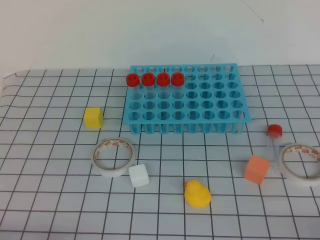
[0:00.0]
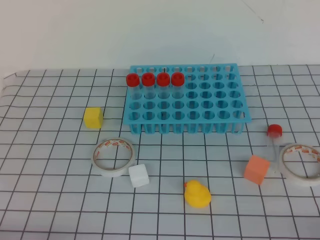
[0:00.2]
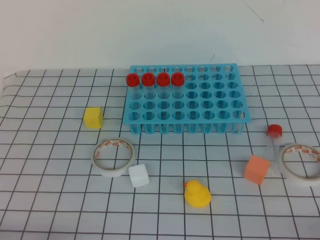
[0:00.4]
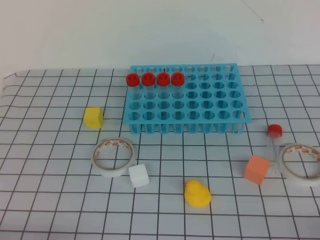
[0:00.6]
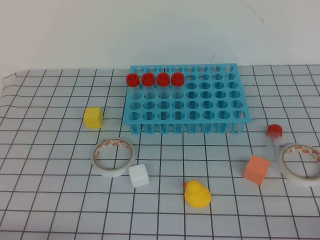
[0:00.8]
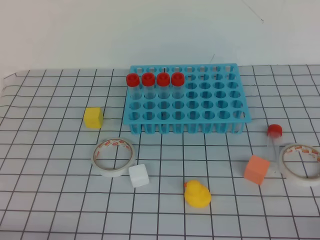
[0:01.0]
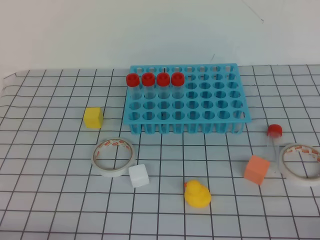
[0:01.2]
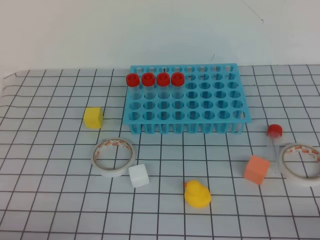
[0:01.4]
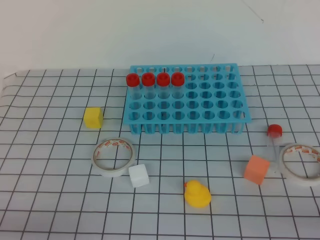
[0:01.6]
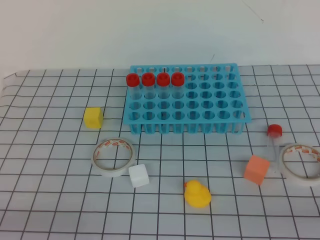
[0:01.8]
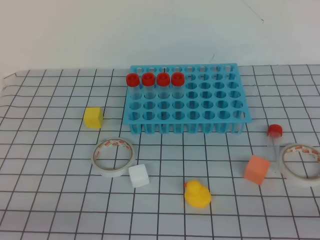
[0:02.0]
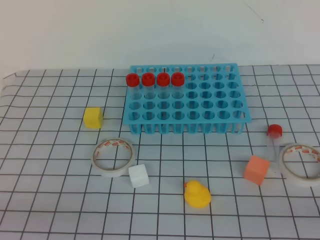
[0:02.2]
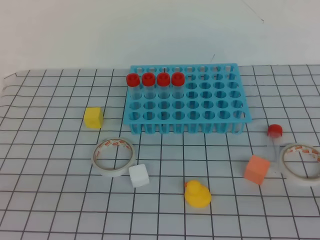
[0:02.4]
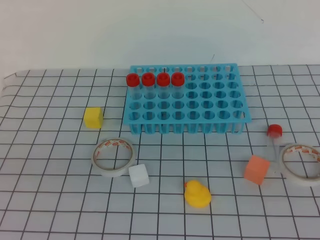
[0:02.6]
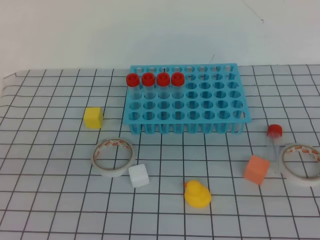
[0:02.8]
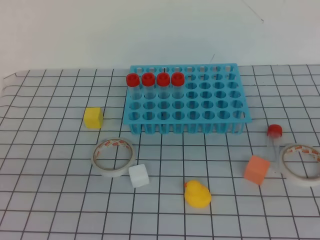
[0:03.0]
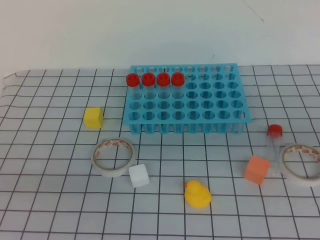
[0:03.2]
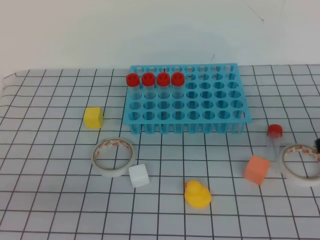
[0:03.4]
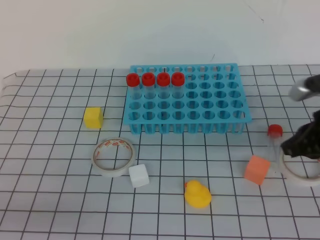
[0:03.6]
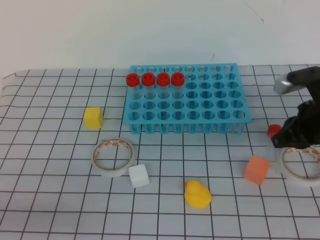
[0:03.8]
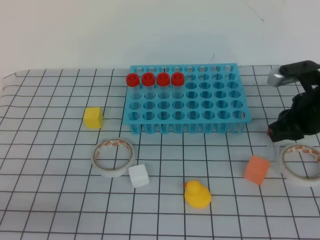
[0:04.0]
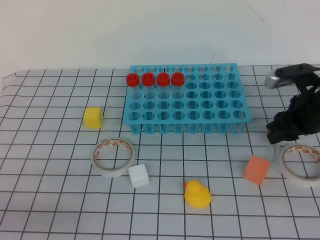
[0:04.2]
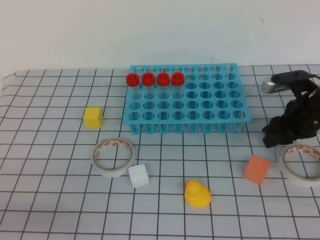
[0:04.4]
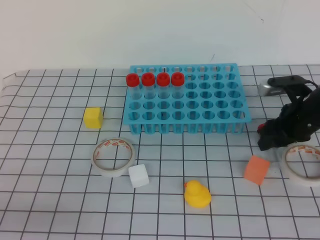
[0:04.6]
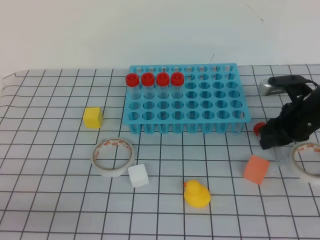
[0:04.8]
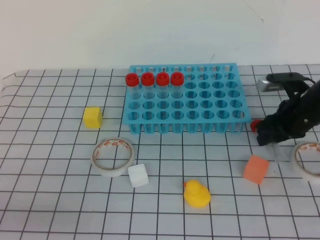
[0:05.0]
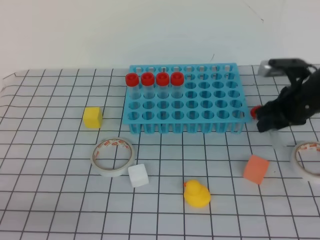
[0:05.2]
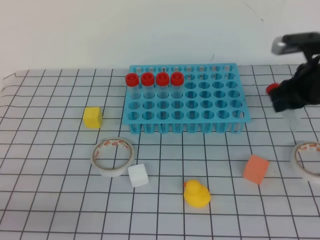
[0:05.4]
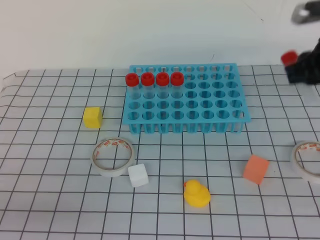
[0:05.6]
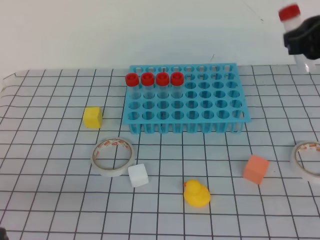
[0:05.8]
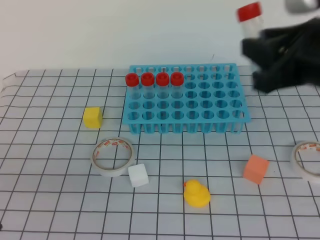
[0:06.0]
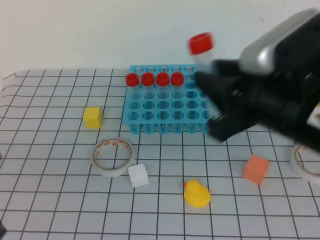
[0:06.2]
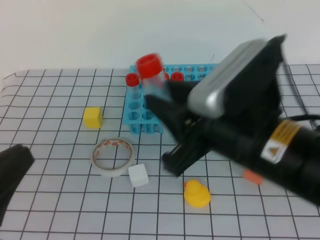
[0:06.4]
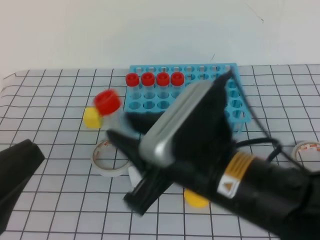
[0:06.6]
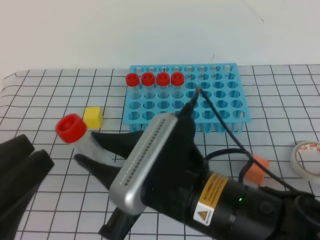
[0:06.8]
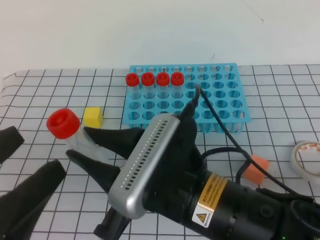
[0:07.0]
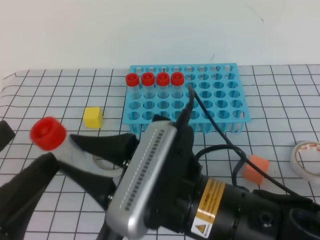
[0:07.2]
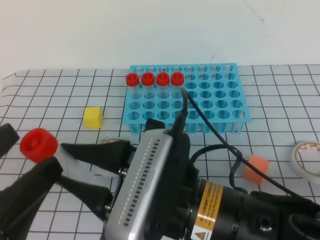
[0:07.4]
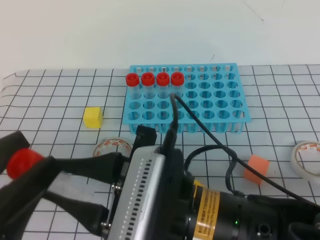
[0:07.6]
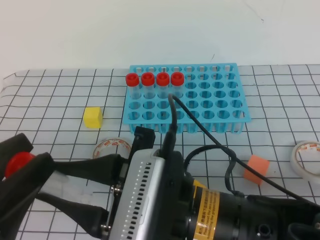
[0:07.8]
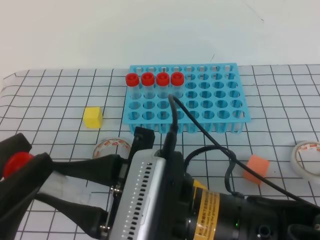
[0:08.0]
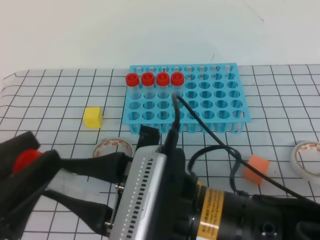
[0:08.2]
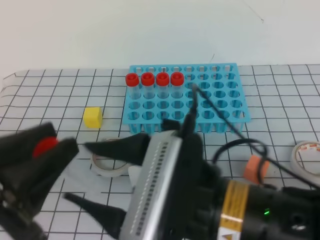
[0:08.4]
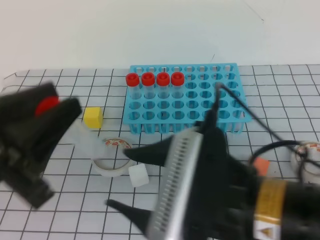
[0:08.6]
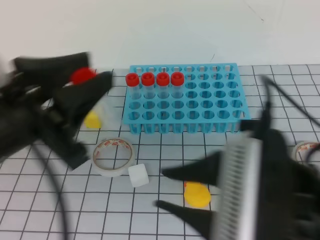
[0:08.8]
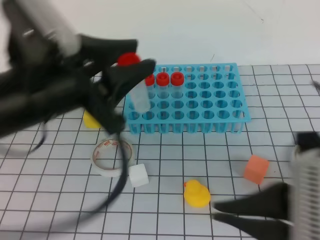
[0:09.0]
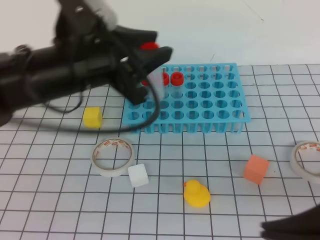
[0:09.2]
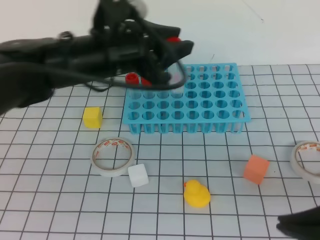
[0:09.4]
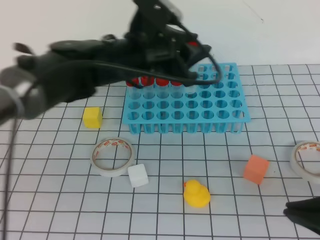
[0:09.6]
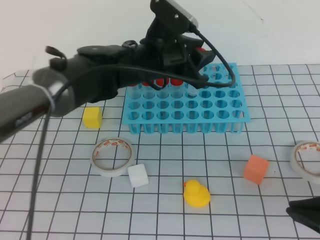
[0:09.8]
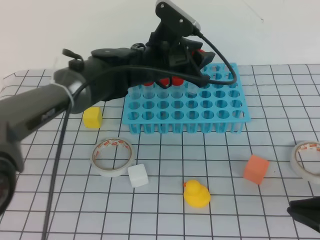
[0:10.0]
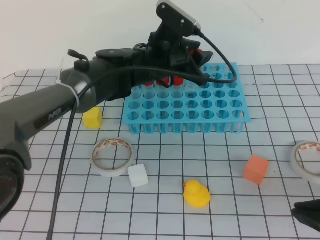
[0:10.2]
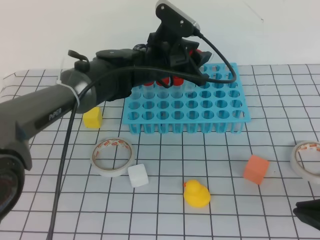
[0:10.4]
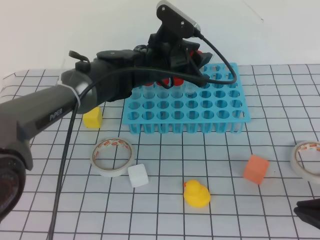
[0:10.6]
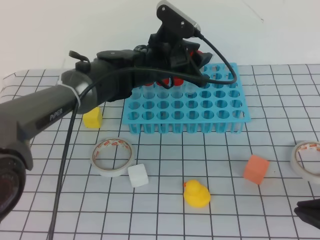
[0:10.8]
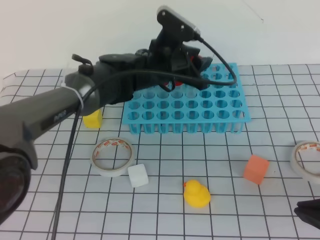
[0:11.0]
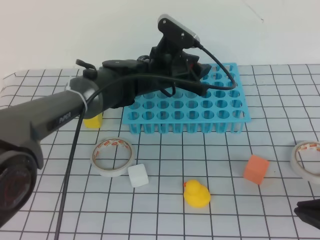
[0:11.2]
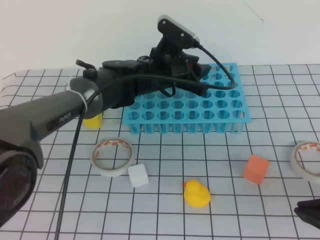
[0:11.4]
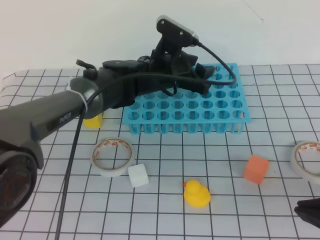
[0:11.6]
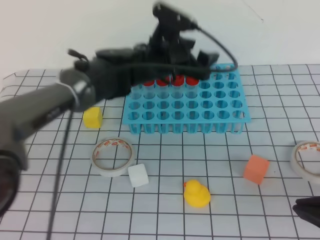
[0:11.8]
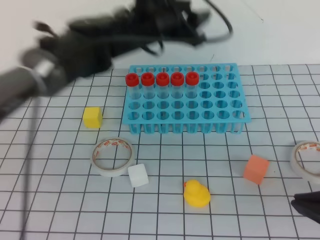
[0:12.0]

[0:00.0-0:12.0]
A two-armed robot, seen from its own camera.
0:03.0 to 0:04.4: The right gripper is displaced forward and downward by approximately 30 cm, and opens.
0:04.4 to 0:06.0: The right gripper goes approximately 20 cm upward and backward.
0:06.0 to 0:07.6: The left gripper ends up about 5 cm from where it was, and opens up, while the right gripper heads to the left, backward and downward, covering roughly 20 cm.
0:07.6 to 0:09.0: The right gripper heads to the right and upward, covering some 15 cm; the left gripper is displaced forward and to the right by approximately 15 cm.
0:09.0 to 0:10.4: The right gripper goes roughly 5 cm to the right. The left gripper heads forward, to the right and downward, covering about 30 cm.
0:10.4 to 0:12.0: The left gripper heads upward, covering roughly 10 cm.

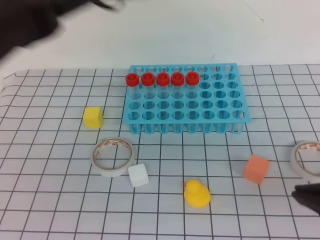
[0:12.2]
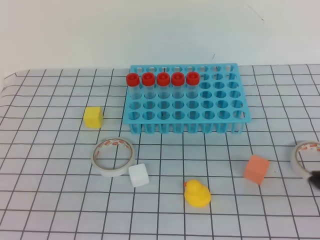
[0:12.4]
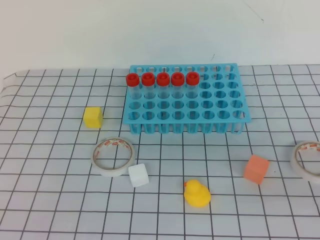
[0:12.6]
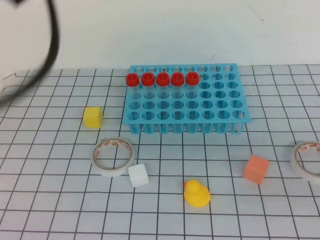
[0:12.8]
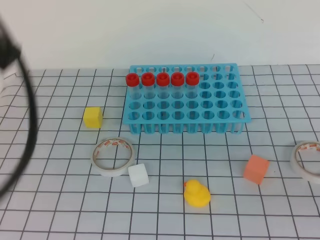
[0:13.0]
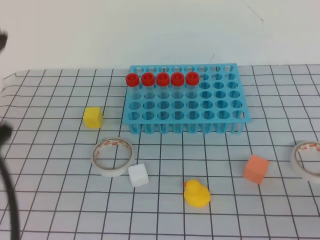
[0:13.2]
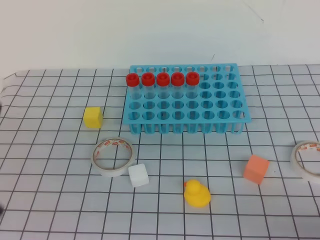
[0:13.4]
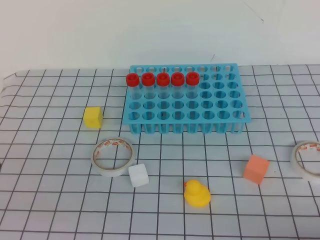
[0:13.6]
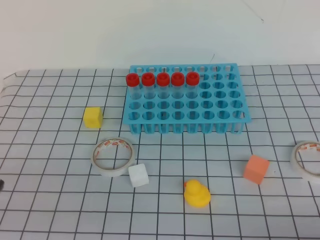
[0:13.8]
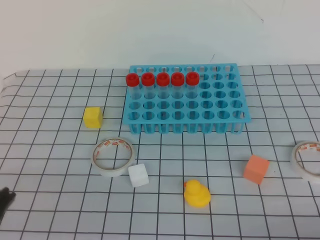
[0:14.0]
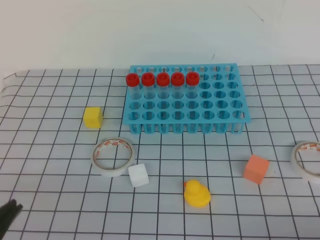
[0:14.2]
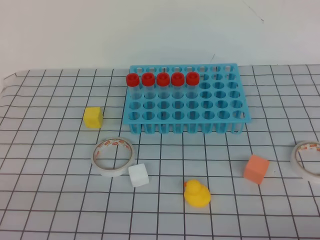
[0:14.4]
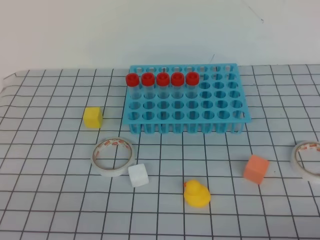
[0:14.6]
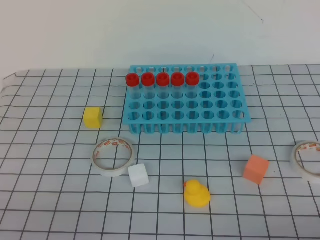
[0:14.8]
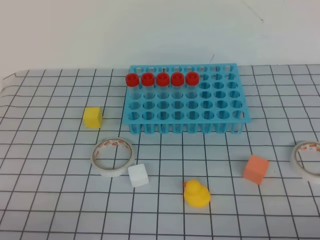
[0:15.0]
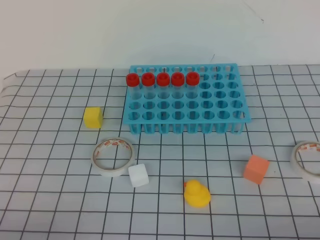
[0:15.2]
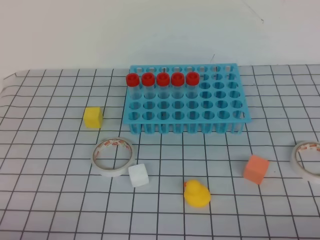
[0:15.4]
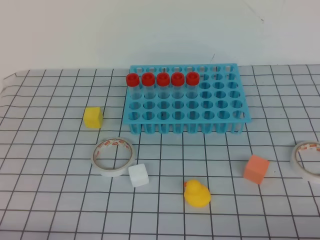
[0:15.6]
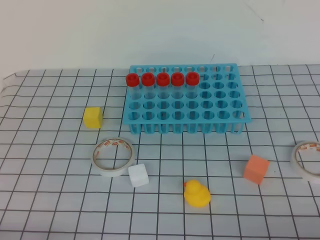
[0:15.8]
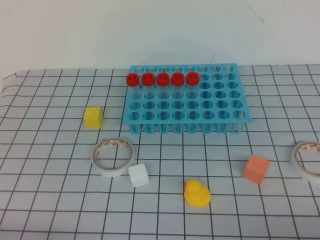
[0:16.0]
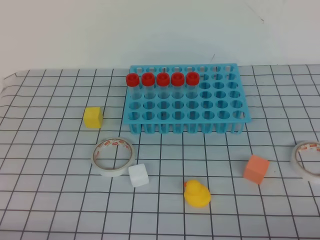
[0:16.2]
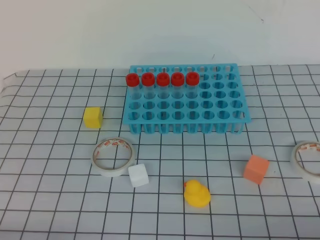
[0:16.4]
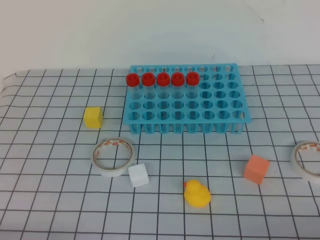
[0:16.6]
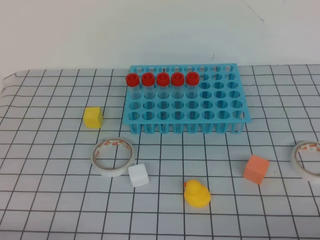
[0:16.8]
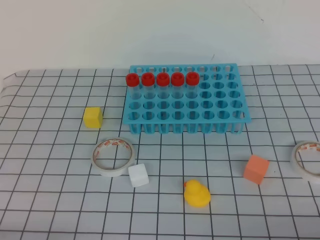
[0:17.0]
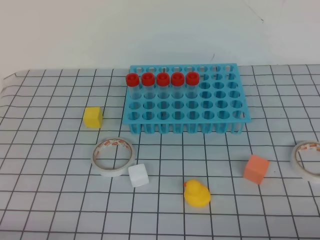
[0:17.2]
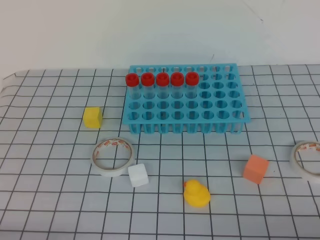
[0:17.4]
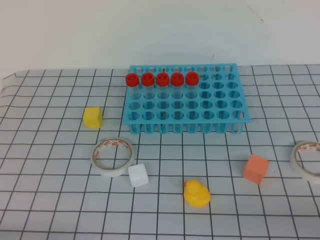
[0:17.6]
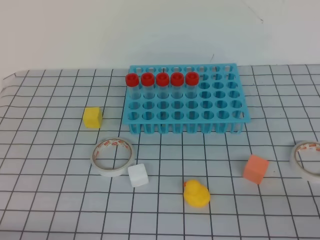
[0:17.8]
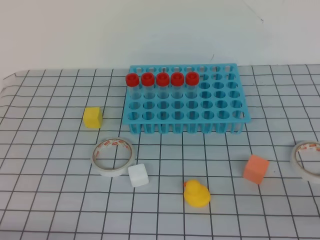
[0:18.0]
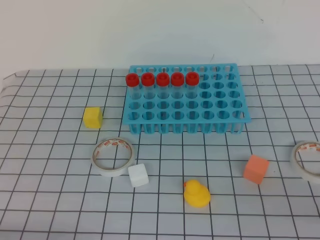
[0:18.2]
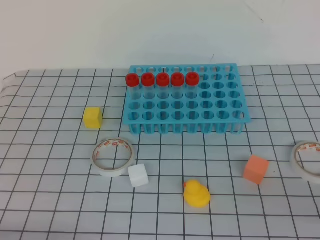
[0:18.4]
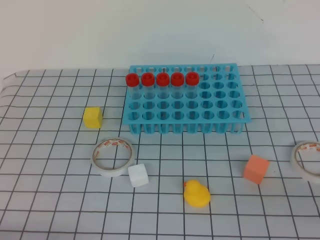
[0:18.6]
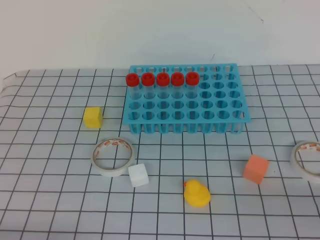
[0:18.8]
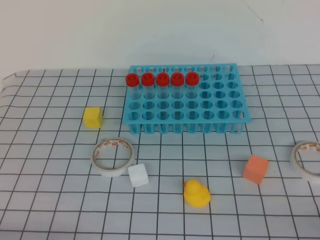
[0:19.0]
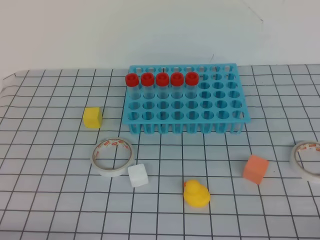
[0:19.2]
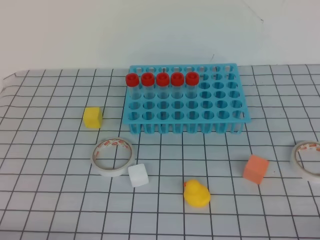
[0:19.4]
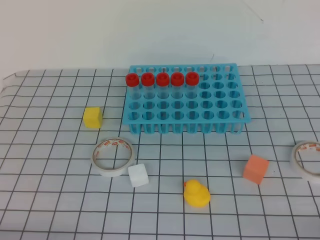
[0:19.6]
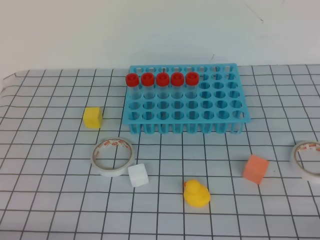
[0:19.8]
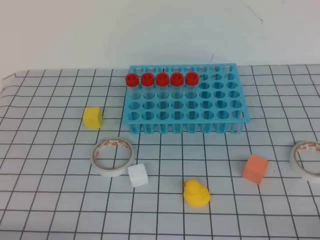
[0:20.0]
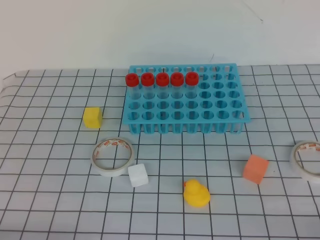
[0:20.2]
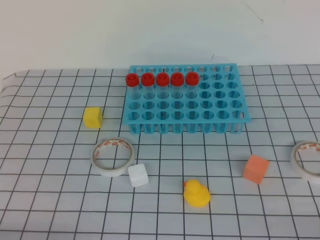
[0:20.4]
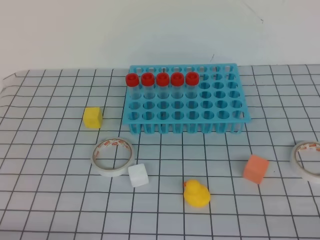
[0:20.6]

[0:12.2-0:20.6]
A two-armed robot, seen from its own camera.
0:12.2 to 0:13.6: The right gripper is displaced downward by about 10 cm; the left gripper heads backward and to the left, covering roughly 35 cm, and closes up.
0:13.6 to 0:15.0: The left gripper goes about 10 cm downward.

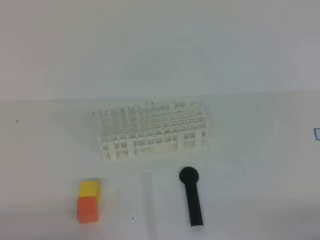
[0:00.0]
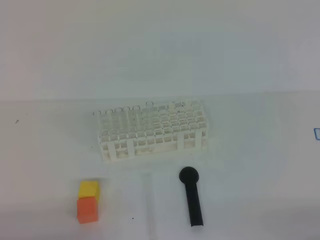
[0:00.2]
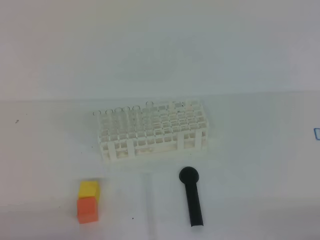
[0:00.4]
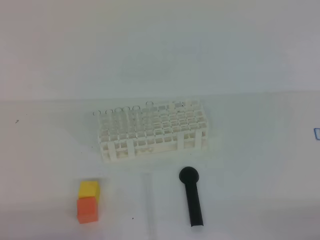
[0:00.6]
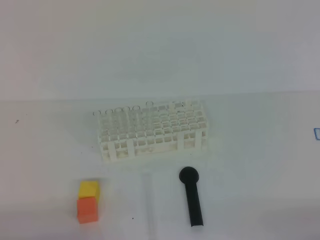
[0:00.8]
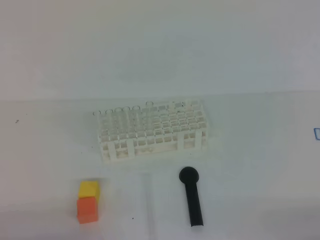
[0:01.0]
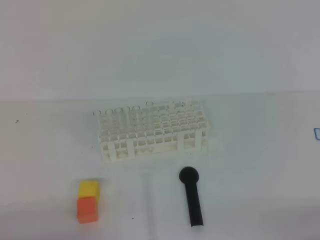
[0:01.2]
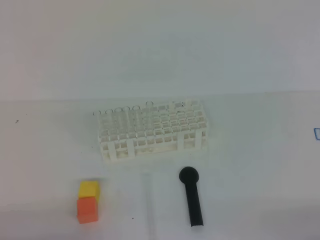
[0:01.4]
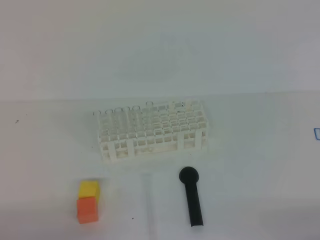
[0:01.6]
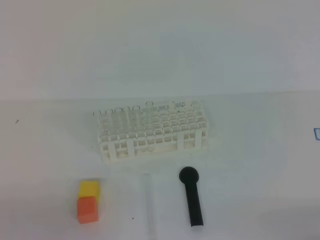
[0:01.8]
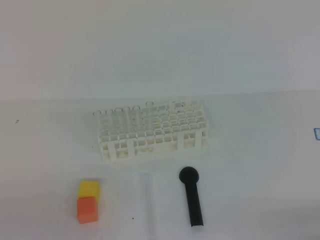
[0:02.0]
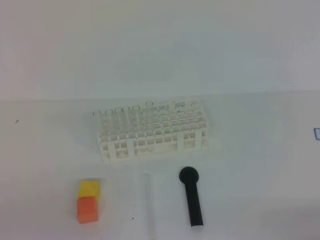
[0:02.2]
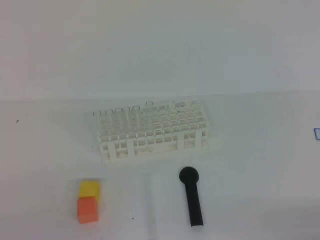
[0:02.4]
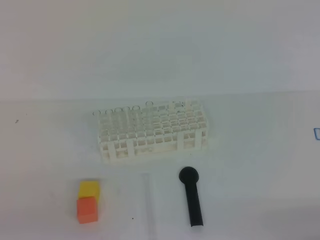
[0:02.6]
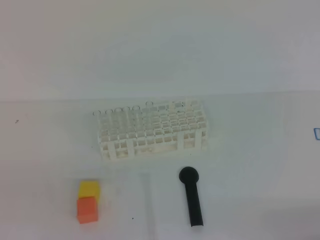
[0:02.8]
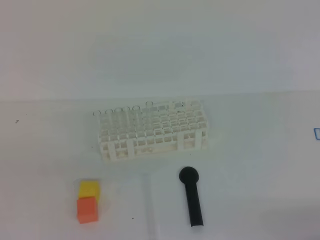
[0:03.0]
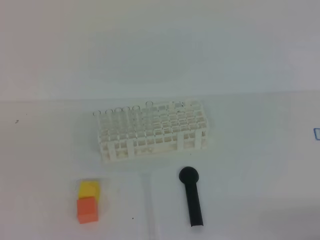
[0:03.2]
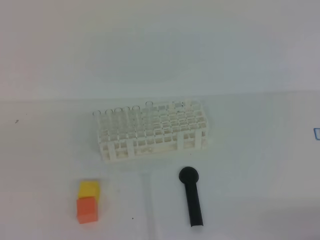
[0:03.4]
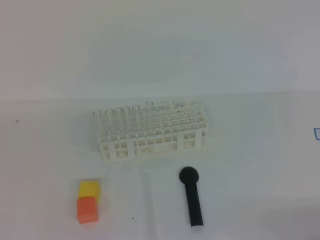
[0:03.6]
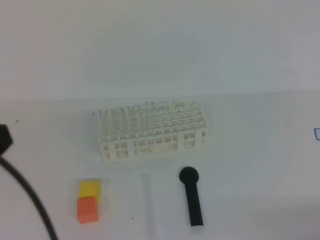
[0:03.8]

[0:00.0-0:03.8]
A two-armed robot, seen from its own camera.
0:00.0 to 0:01.2: The two grippers keep their place.
0:02.6 to 0:03.8: The left gripper shifts roughly 15 cm upward and forward.
